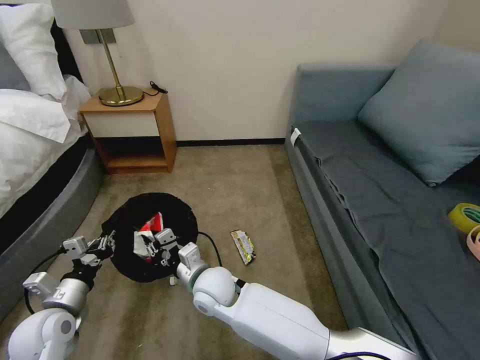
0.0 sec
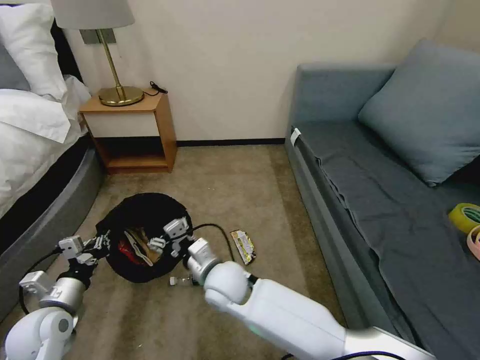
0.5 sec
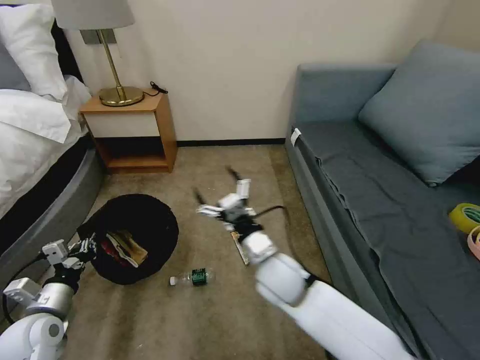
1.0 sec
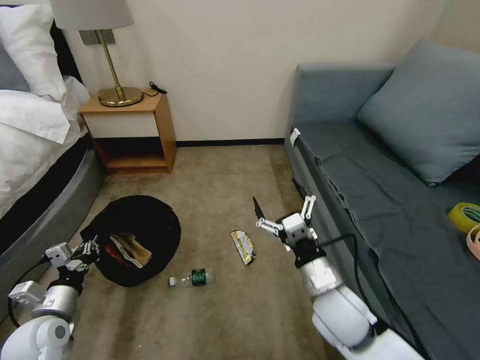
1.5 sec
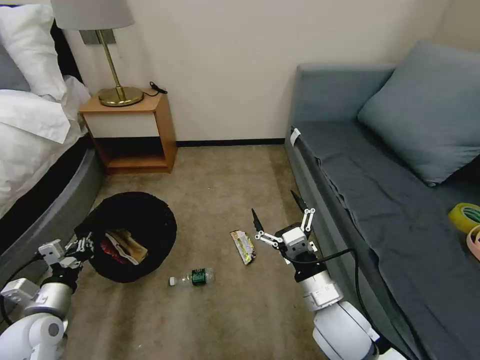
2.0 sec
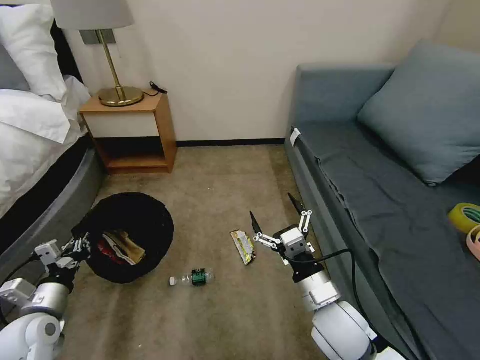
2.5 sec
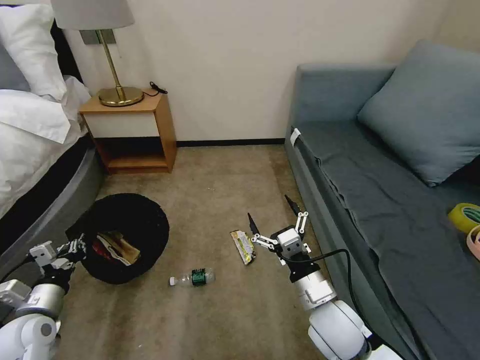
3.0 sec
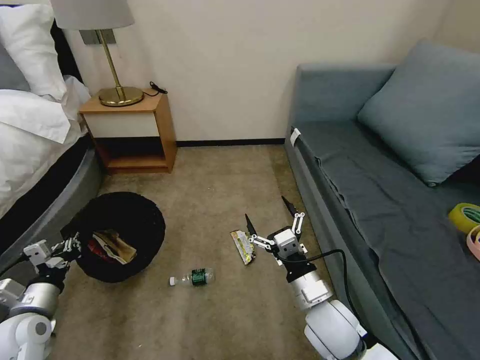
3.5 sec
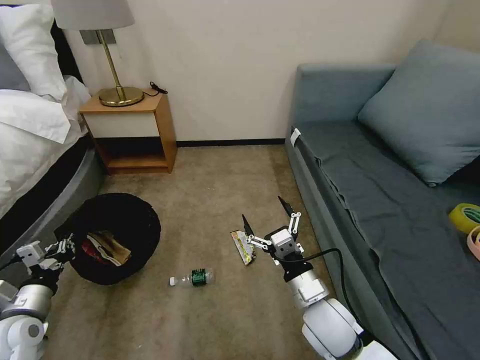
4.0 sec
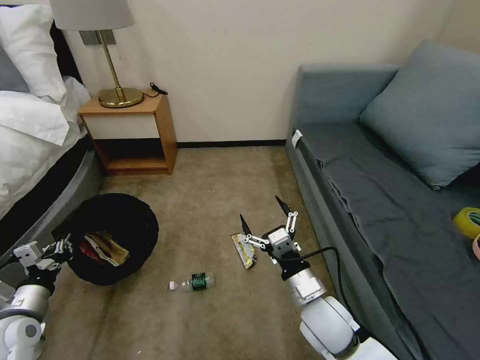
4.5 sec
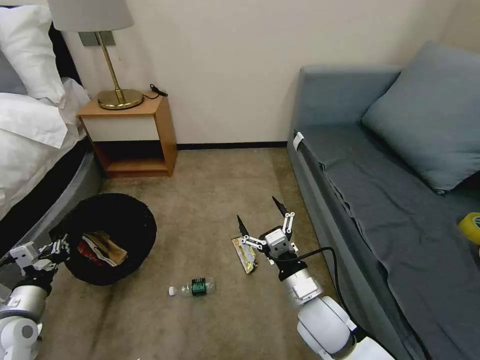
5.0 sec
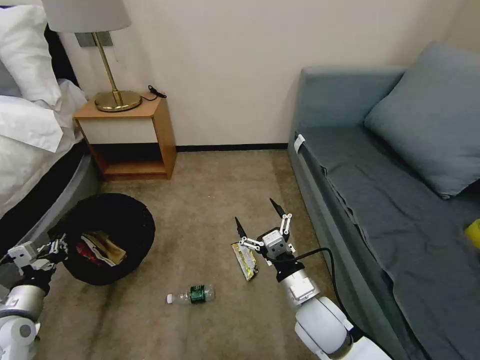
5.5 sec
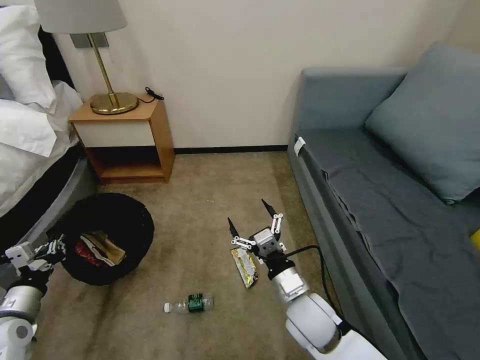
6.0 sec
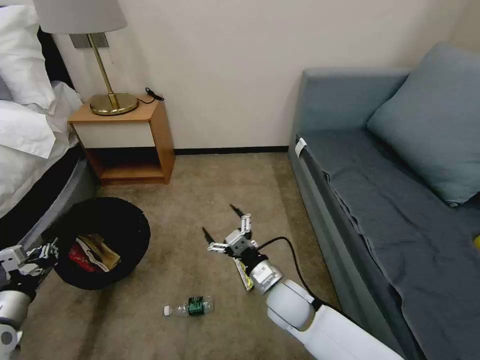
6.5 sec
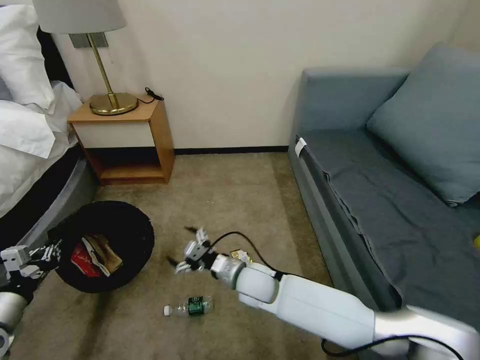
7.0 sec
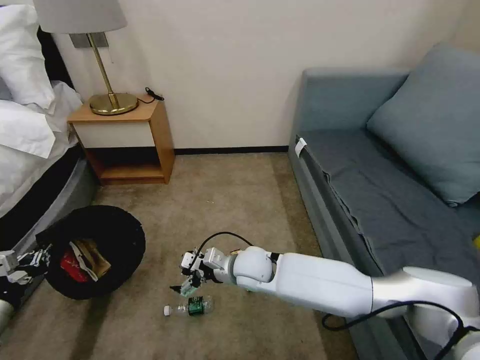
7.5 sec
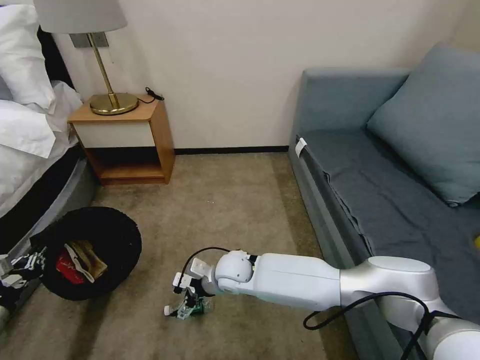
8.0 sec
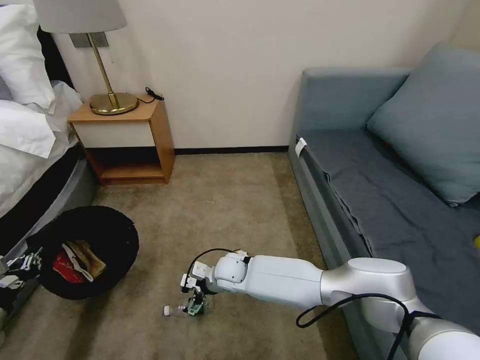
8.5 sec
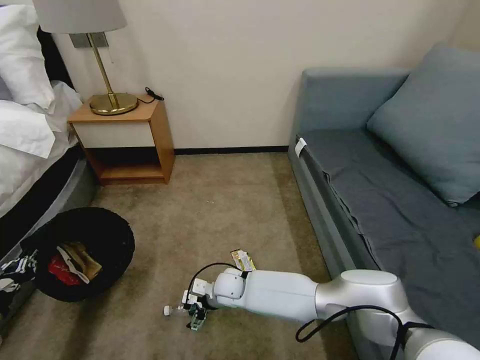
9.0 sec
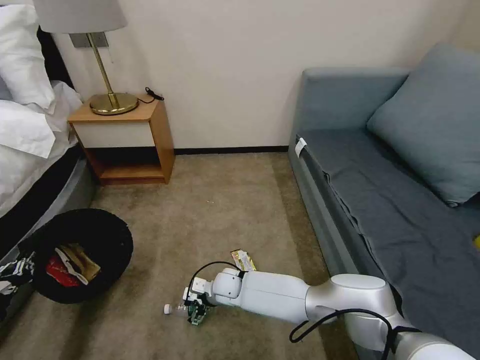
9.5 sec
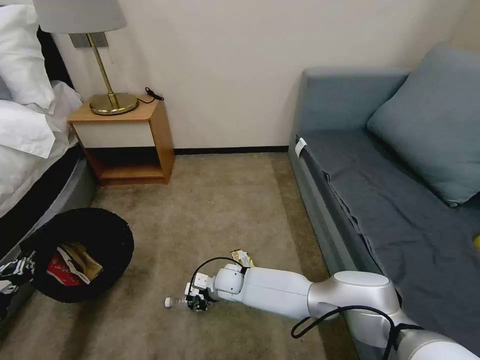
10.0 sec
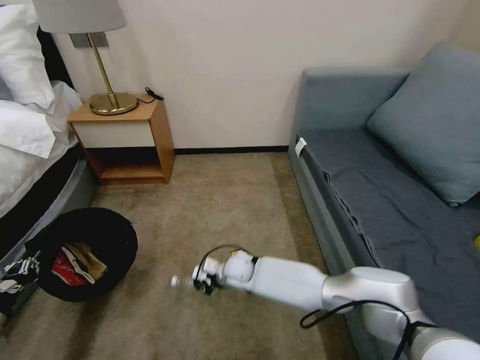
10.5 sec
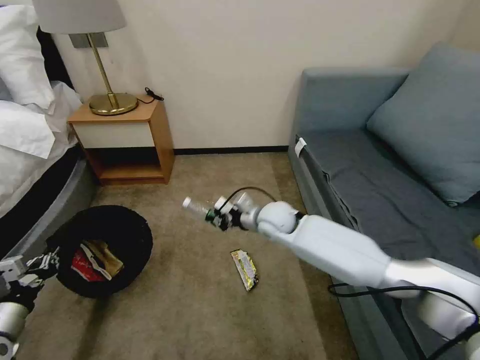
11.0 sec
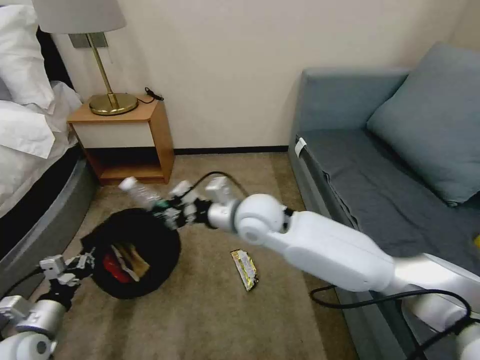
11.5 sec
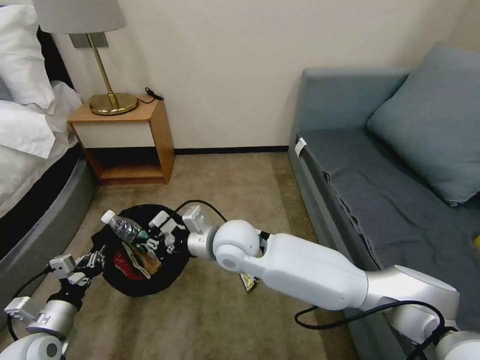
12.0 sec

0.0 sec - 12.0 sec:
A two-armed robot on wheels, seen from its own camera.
Task of the whole recording: Pick up the trash bin, then pick up the garbage on the floor and place it into the trash bin.
0.0 sec - 2.0 sec: The right gripper is displaced to the right by approximately 25 cm, and opens up.
2.0 sec - 4.0 sec: The grippers make only small movements.
6.0 sec - 8.0 sec: The right gripper moves to the left and forward, about 20 cm. Meanwhile the left gripper is displaced to the left by roughly 5 cm.
8.0 sec - 10.0 sec: The right gripper goes approximately 10 cm downward, and closes up.
10.0 sec - 12.0 sec: The left gripper shifts approximately 15 cm to the right, while the right gripper heads upward, covering about 25 cm.

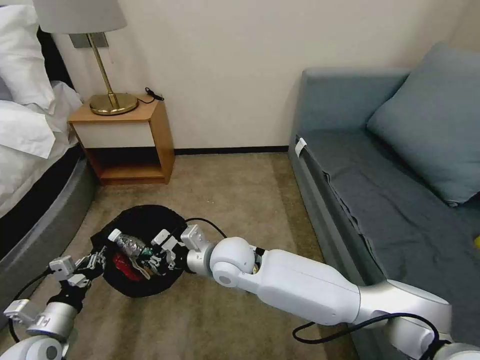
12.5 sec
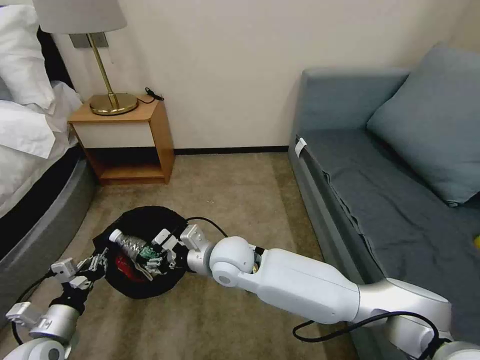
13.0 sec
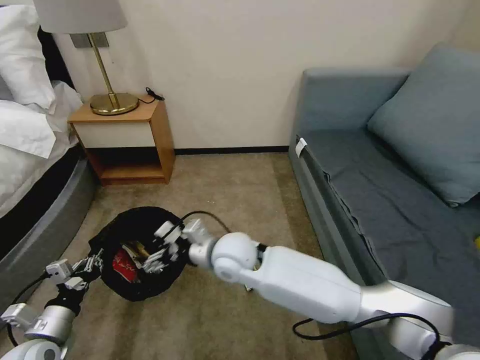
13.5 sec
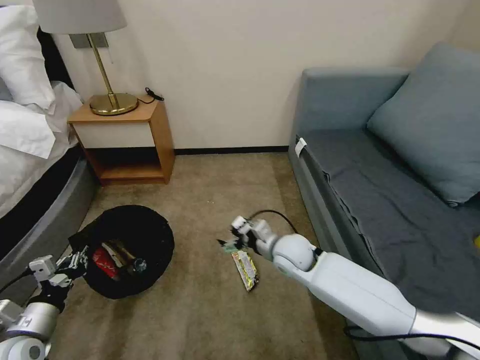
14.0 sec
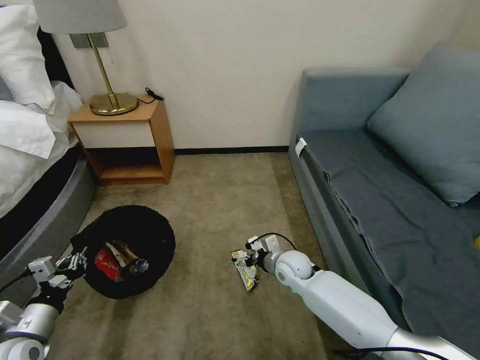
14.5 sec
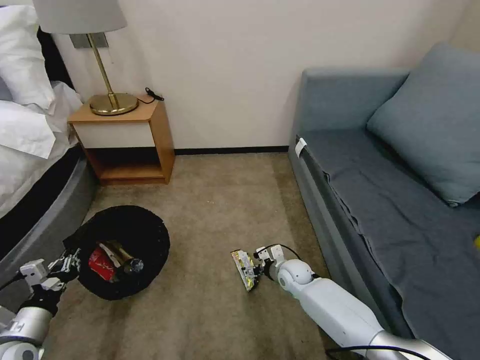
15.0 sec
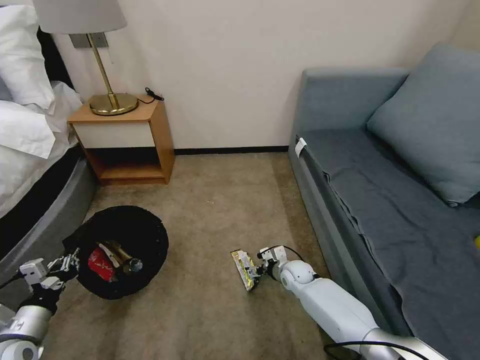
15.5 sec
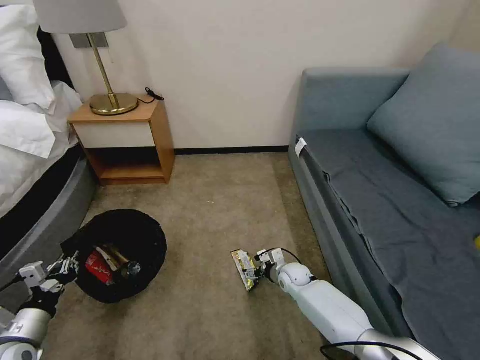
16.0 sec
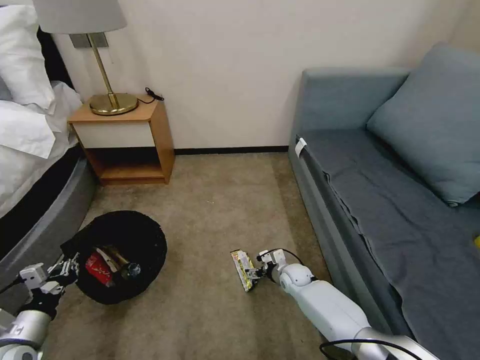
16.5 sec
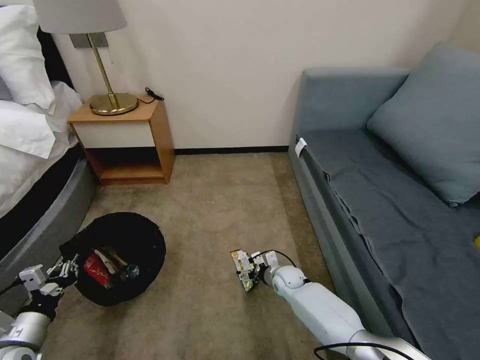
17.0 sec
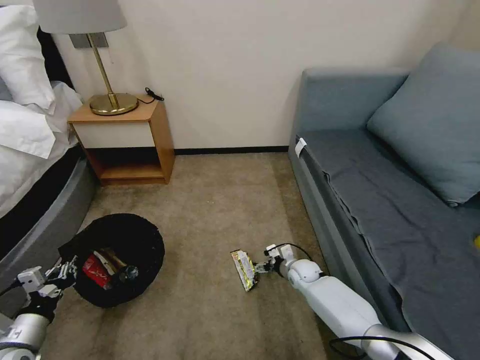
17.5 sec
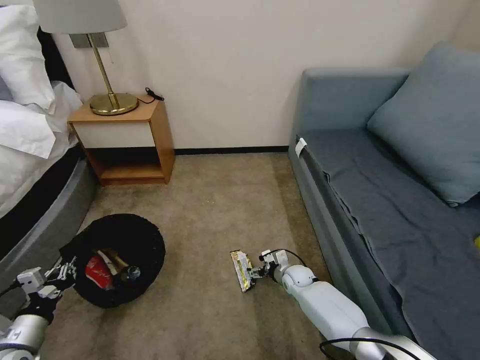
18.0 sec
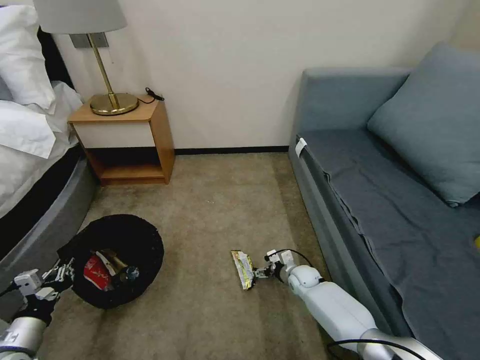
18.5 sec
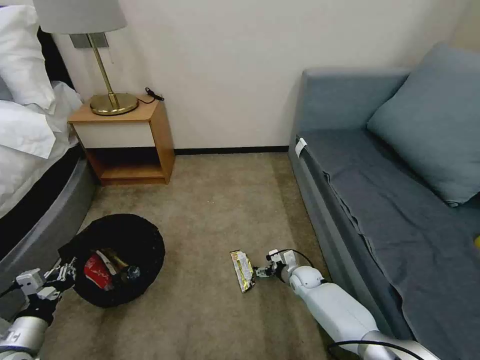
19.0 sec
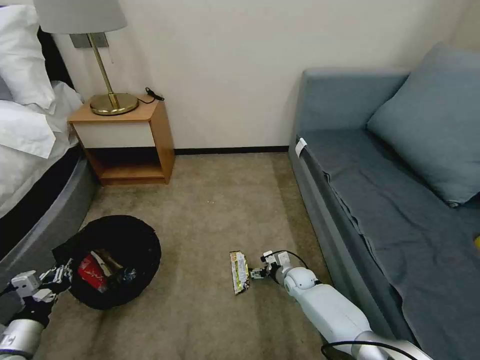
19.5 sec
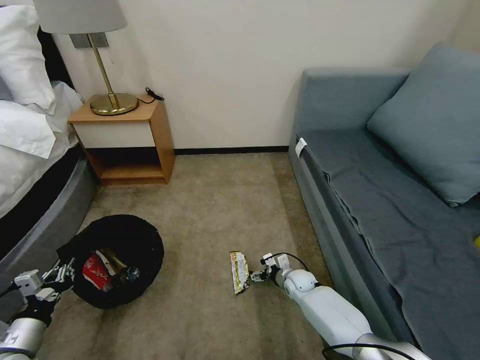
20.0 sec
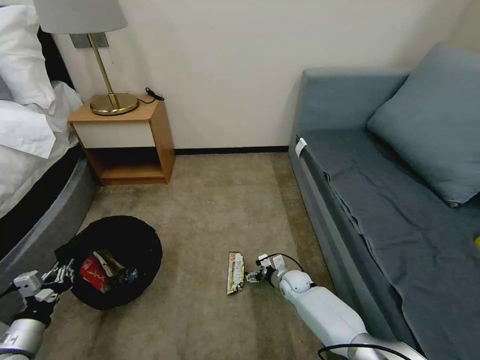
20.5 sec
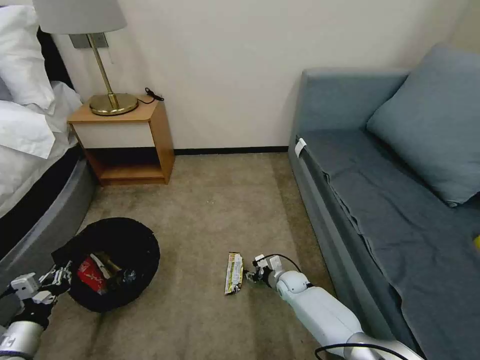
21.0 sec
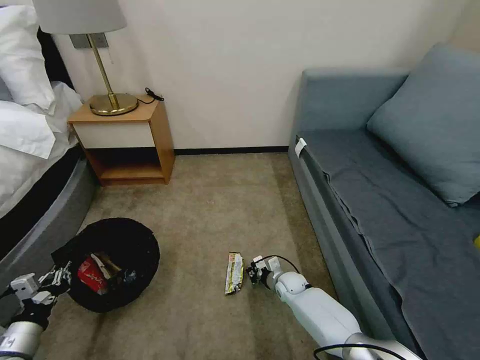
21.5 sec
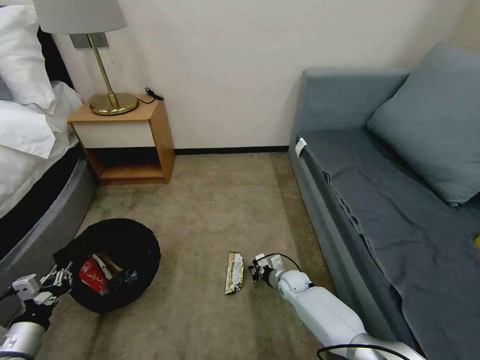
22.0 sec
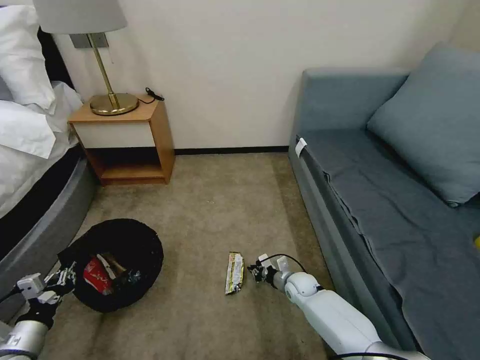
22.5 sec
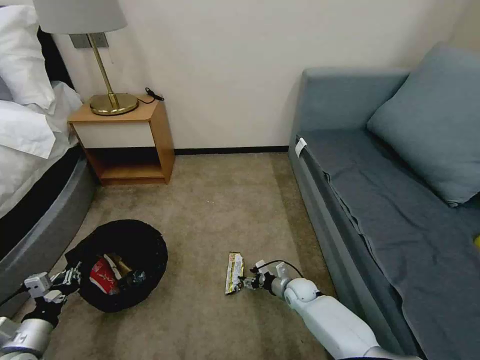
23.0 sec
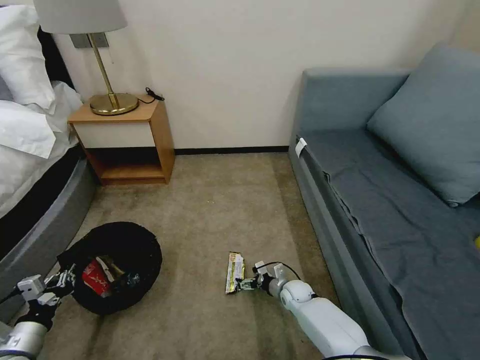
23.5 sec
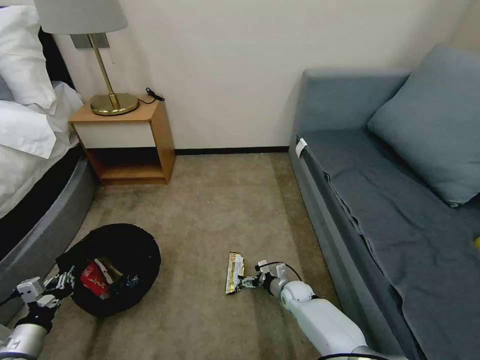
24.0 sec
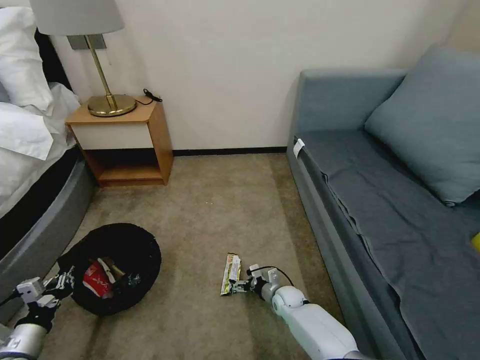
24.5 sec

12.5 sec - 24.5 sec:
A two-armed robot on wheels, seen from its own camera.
Task of the whole recording: Pick up the trash bin, then pick up the garbage on the floor and place it into the trash bin.
12.5 sec - 14.5 sec: The right gripper heads to the right and downward, covering about 25 cm, and opens up.
14.5 sec - 16.5 sec: The right gripper travels downward by approximately 10 cm.
16.5 sec - 20.5 sec: There are only small adjustments of the grippers.
20.5 sec - 22.5 sec: The right gripper closes up.
22.5 sec - 24.5 sec: The right gripper ends up roughly 5 cm from where it was, and opens its fingers.

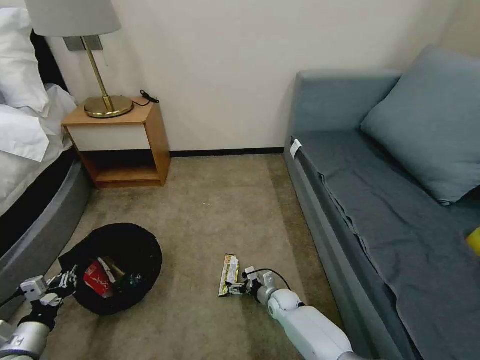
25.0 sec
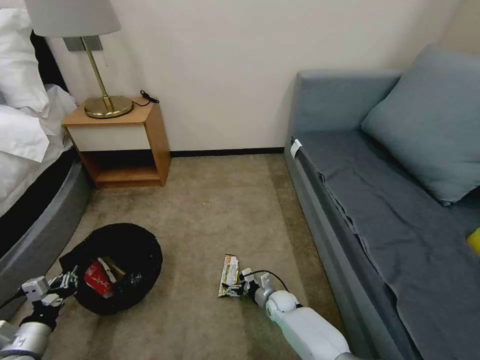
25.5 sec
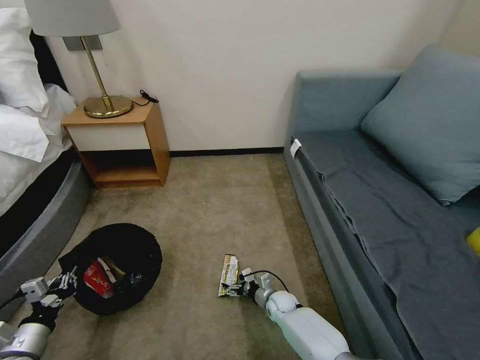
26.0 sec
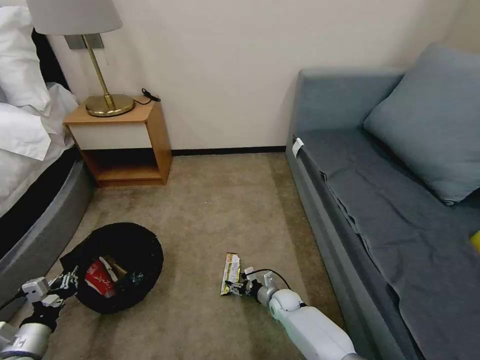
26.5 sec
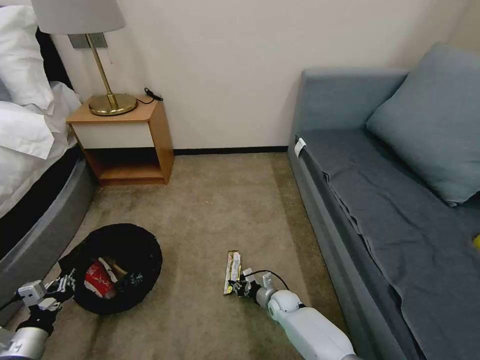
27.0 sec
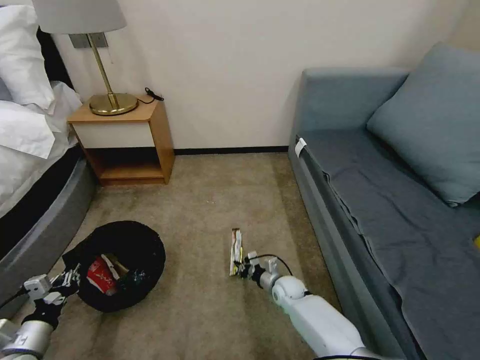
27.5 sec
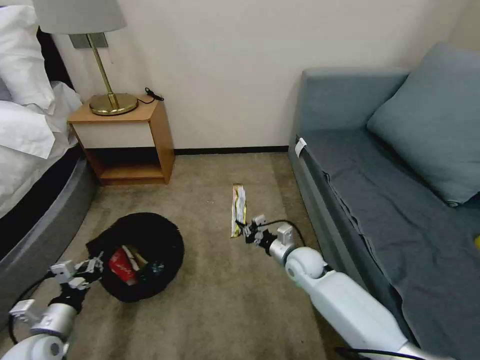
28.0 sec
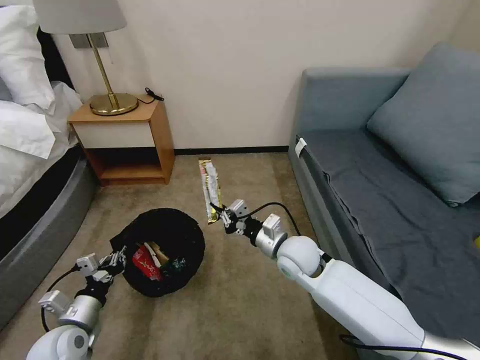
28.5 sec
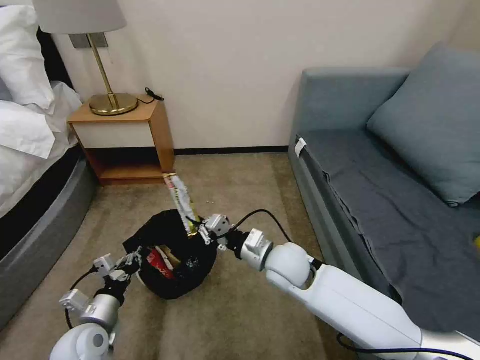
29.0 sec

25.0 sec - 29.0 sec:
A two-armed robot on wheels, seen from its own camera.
Task of the whole recording: Pick up the trash bin, then pick up the garbage on the floor and place it into the trash bin.
25.0 sec - 27.0 sec: The right gripper closes up.
27.0 sec - 29.0 sec: The right gripper shifts approximately 30 cm upward, while the left gripper shifts about 15 cm to the right and forward.
